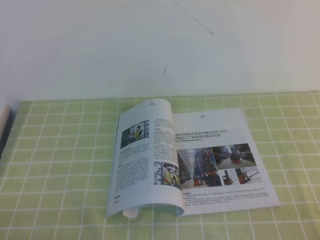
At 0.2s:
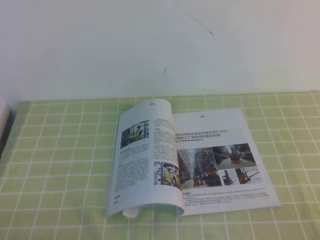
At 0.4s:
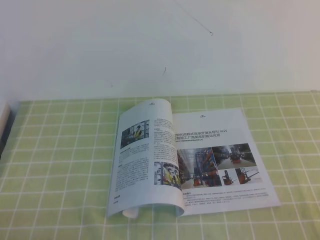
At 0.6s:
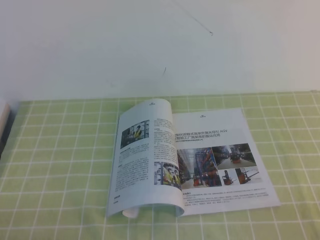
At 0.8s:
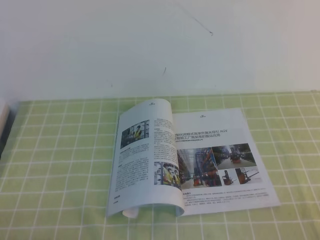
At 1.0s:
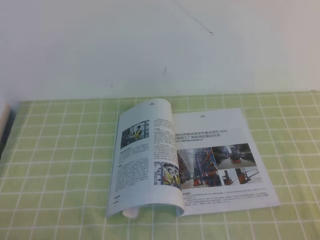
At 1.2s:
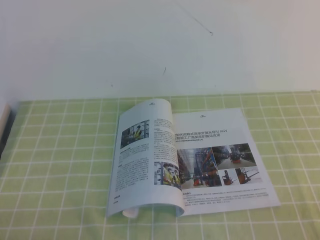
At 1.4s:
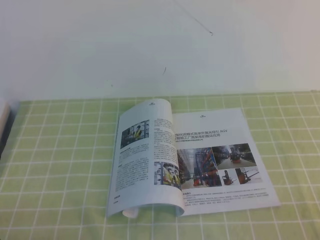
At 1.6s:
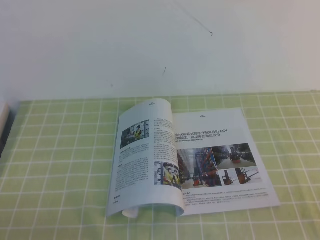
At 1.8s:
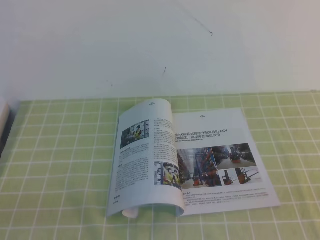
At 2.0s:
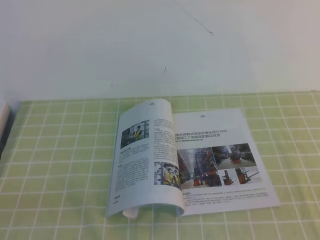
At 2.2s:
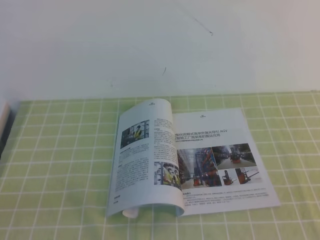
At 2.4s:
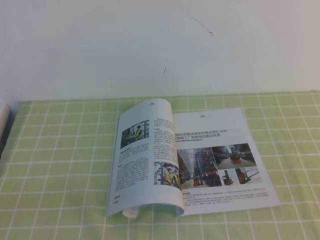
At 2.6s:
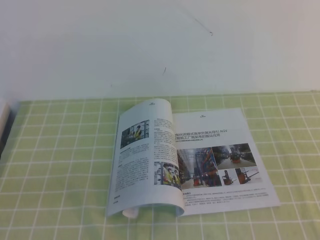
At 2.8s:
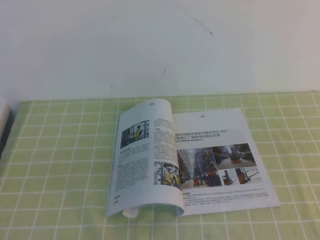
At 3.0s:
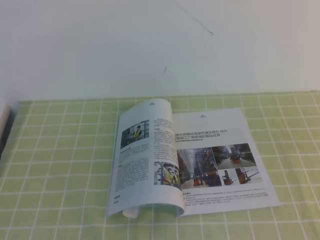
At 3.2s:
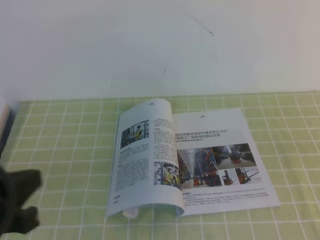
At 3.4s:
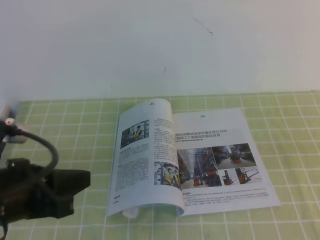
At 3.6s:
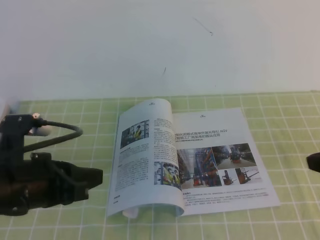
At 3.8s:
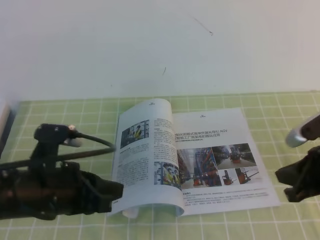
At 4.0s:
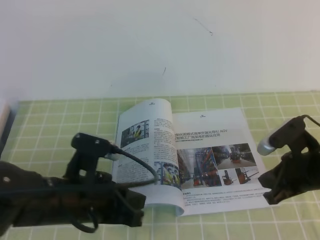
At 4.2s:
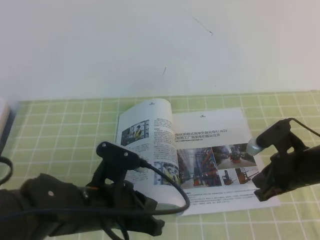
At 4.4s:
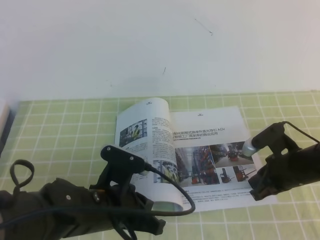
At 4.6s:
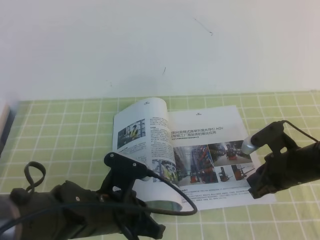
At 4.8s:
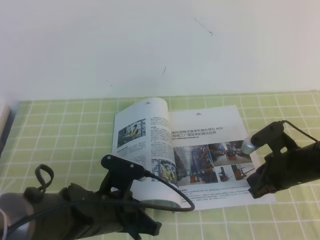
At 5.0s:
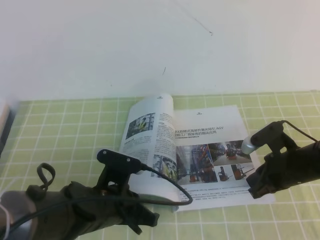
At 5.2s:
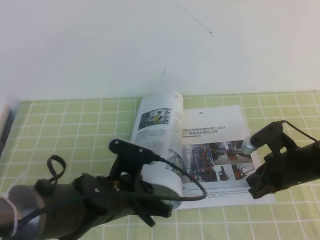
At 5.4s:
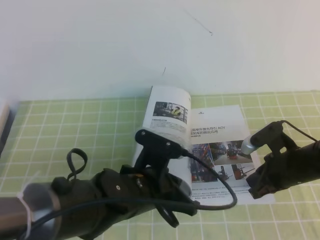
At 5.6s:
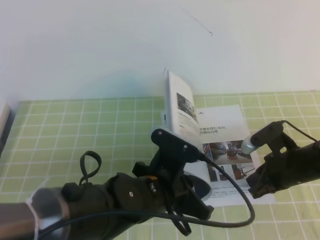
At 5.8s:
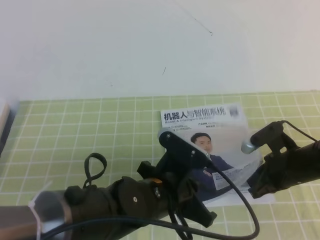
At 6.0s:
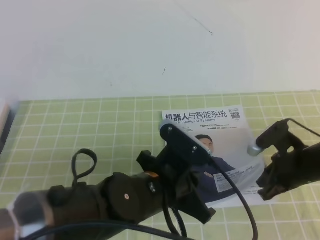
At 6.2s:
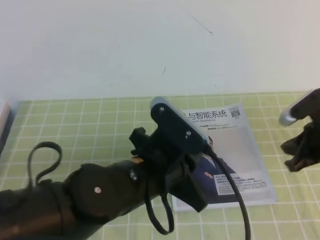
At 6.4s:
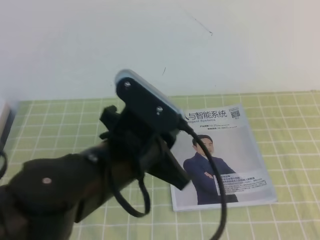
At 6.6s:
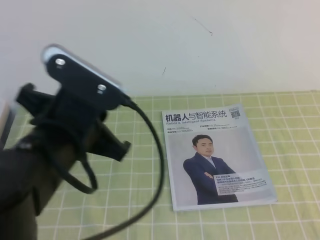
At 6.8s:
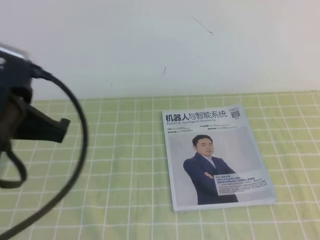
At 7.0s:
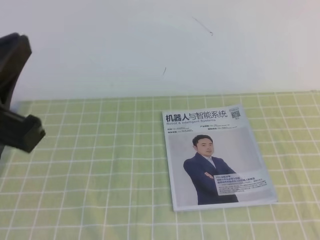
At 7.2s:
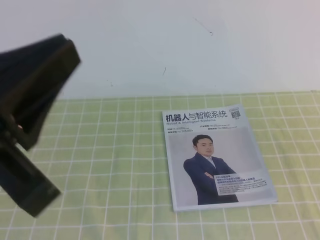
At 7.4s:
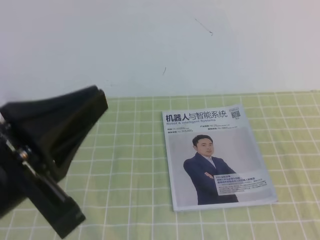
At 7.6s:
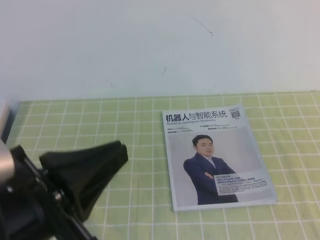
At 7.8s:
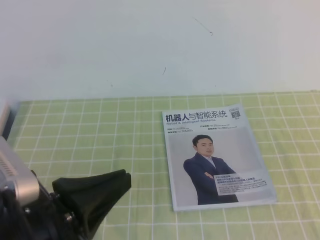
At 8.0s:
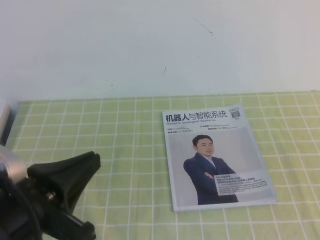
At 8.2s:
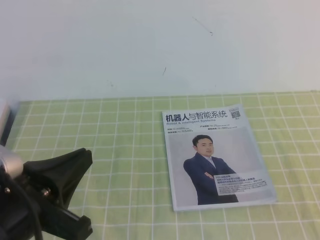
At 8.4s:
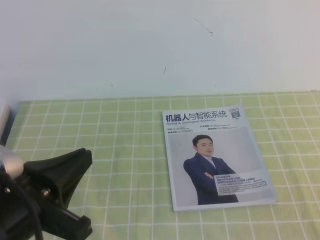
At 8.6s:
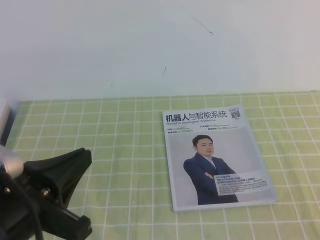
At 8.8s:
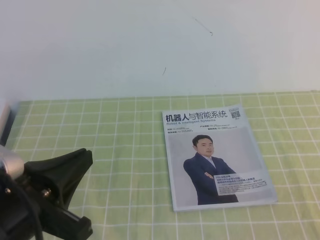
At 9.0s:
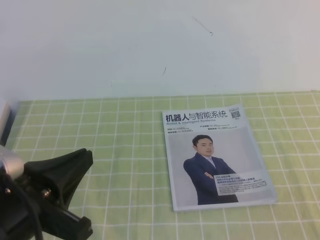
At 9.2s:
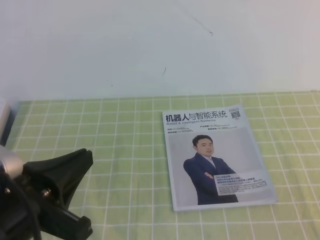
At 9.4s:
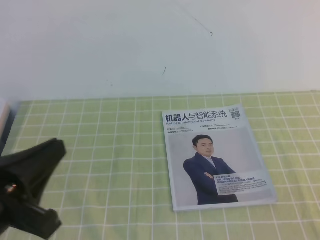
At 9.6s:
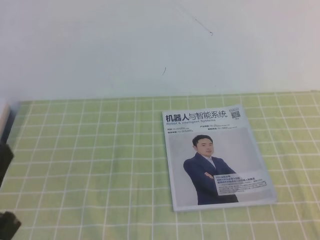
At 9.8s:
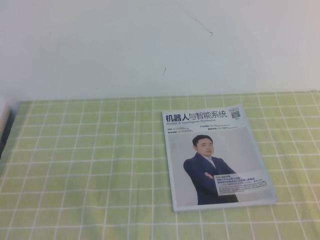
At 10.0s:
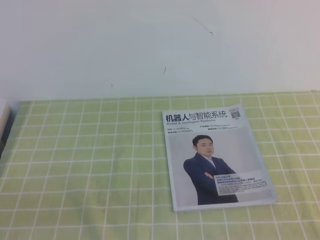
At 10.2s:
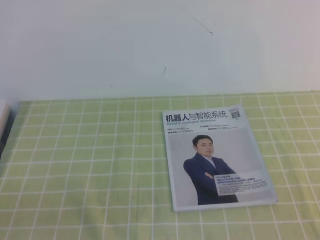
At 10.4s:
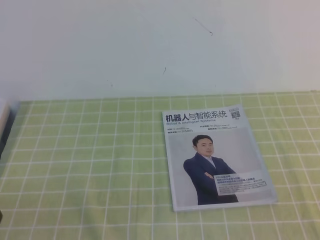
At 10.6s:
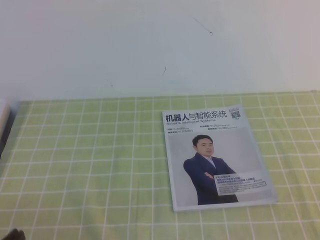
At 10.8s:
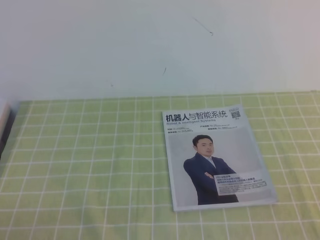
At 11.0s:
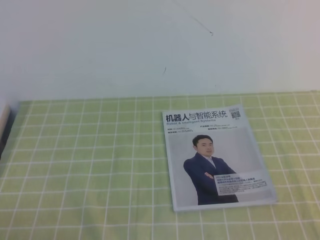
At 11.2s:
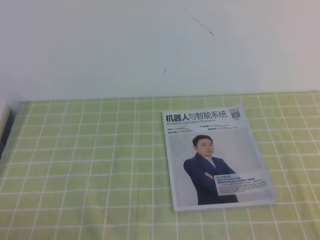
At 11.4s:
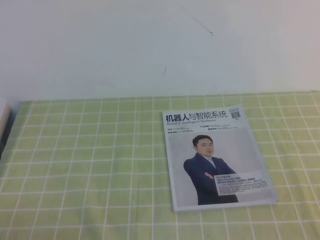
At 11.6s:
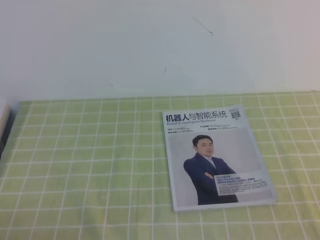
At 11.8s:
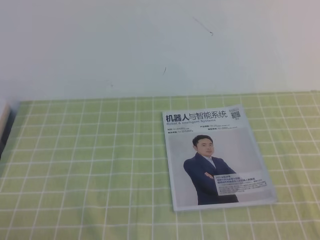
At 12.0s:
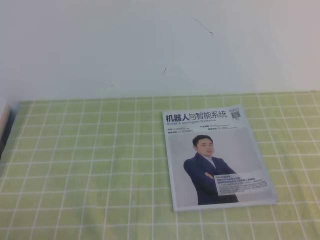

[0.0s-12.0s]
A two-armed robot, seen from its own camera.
Task of the whole recording: on the green tablecloth, hold the book with one hand and close it with the other.
3.0s to 4.4s: The left gripper travels to the right, downward and forward by roughly 25 cm. The right gripper is displaced downward, forward and to the left by about 35 cm.
4.4s to 6.0s: The left gripper shifts some 10 cm to the right.
6.0s to 7.6s: The left gripper is displaced upward, to the left and backward by some 20 cm; the right gripper is displaced backward and upward by roughly 30 cm.
7.6s to 9.0s: The left gripper shifts by about 5 cm, while the right gripper goes some 10 cm downward and backward.
9.0s to 10.4s: The left gripper travels downward, to the left and backward by approximately 15 cm.
